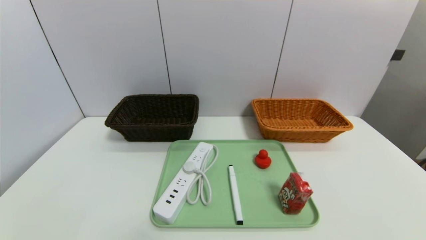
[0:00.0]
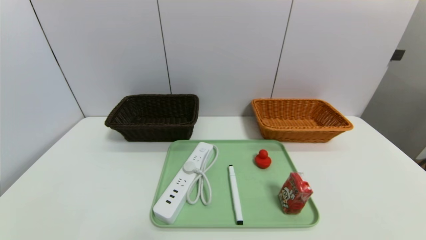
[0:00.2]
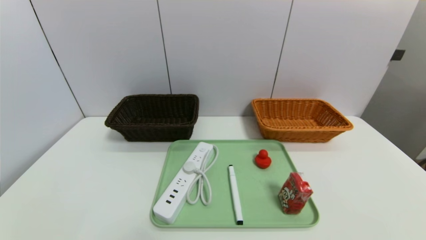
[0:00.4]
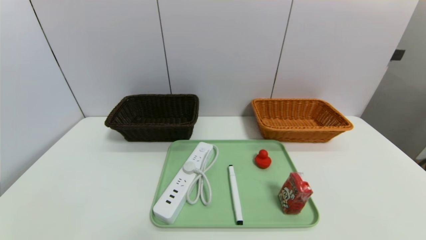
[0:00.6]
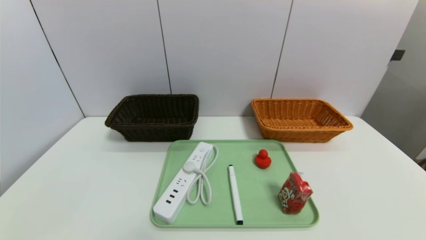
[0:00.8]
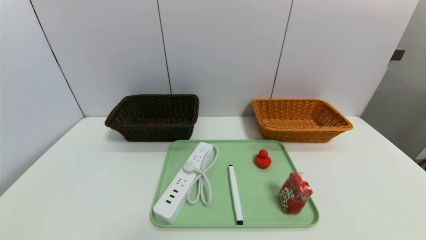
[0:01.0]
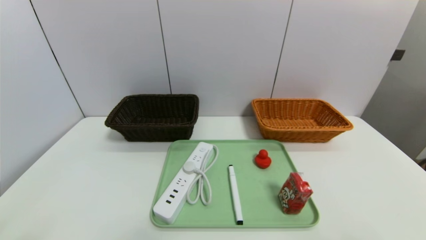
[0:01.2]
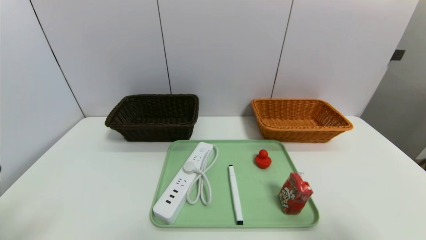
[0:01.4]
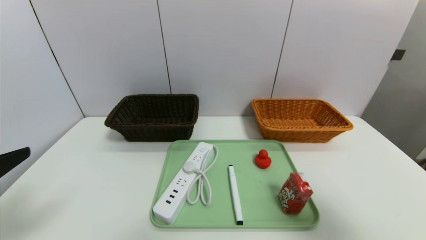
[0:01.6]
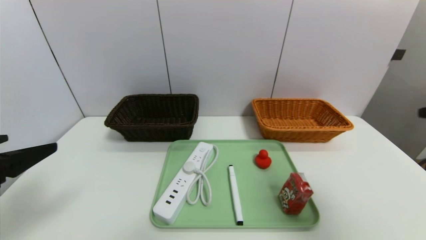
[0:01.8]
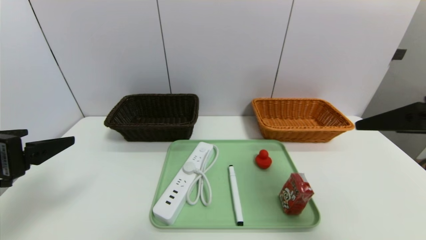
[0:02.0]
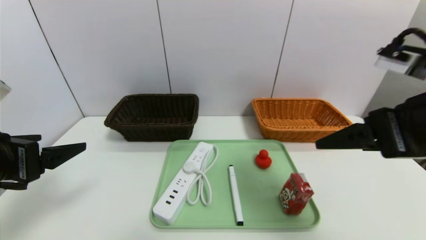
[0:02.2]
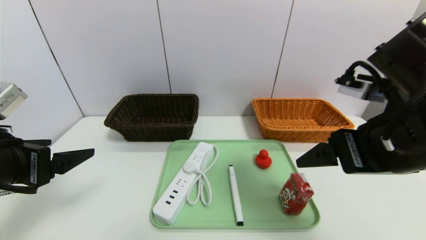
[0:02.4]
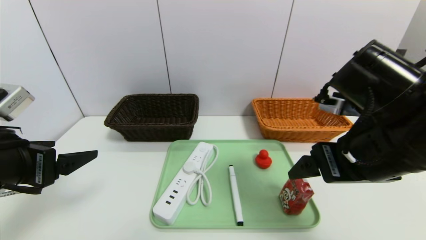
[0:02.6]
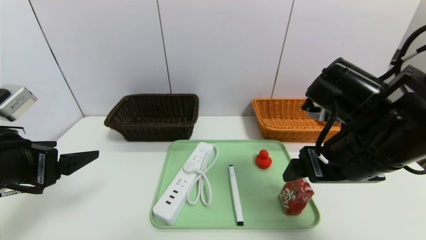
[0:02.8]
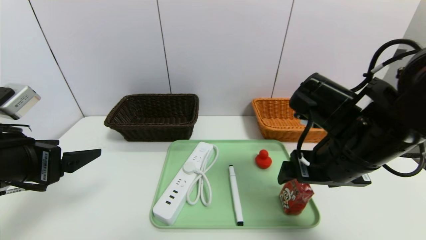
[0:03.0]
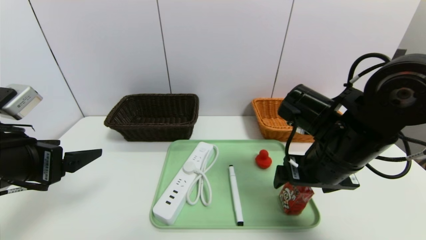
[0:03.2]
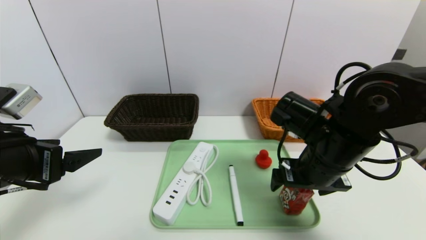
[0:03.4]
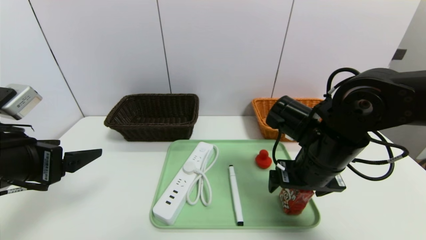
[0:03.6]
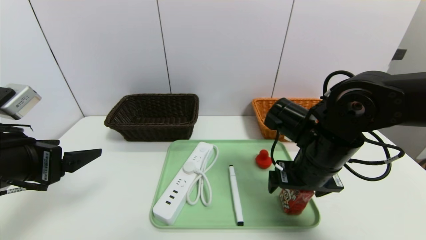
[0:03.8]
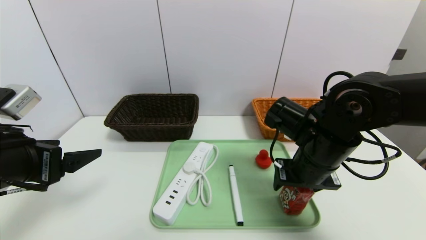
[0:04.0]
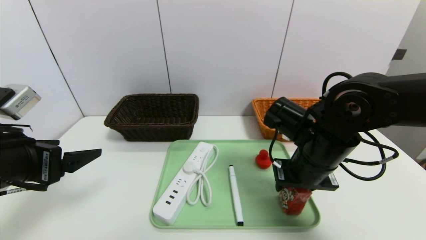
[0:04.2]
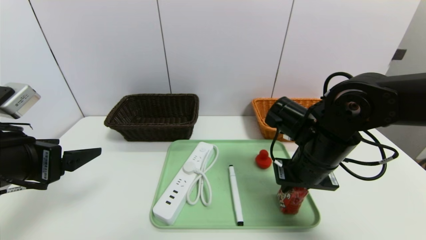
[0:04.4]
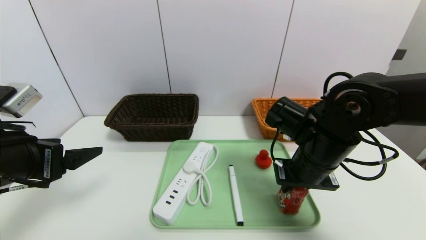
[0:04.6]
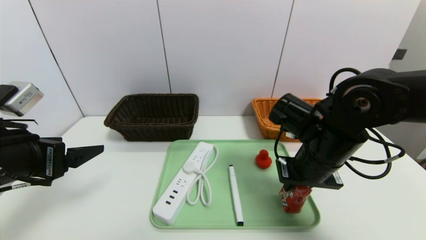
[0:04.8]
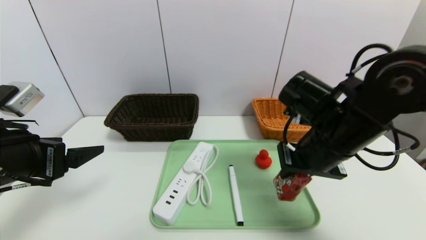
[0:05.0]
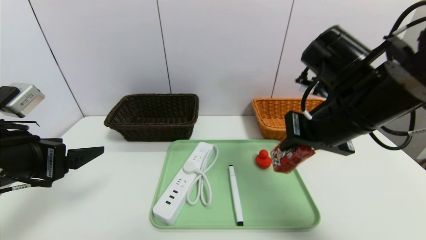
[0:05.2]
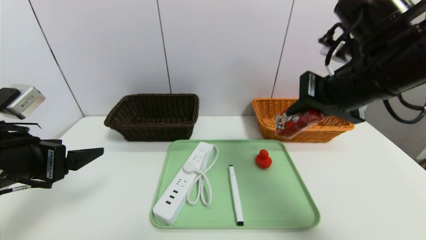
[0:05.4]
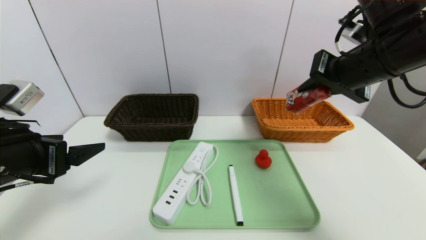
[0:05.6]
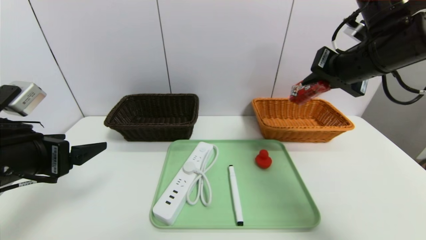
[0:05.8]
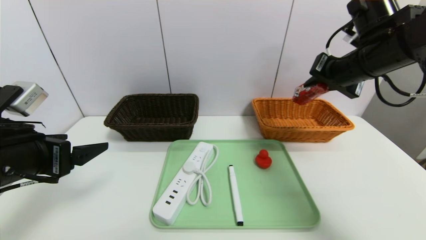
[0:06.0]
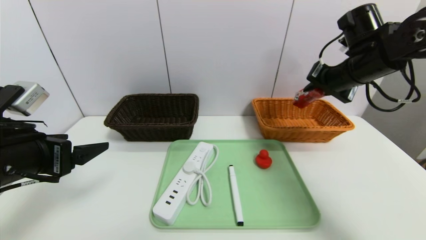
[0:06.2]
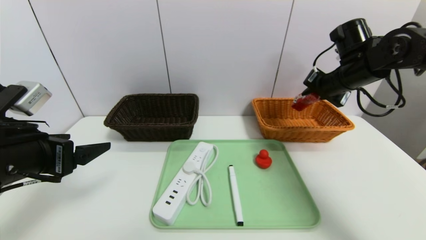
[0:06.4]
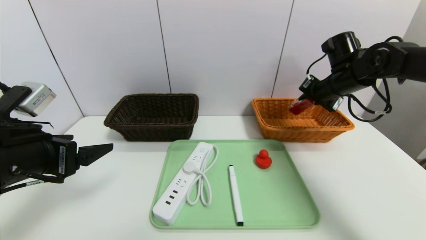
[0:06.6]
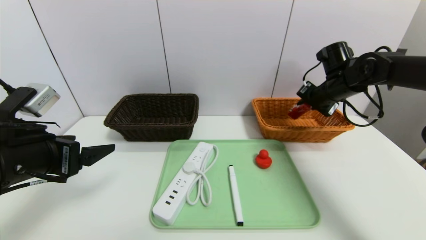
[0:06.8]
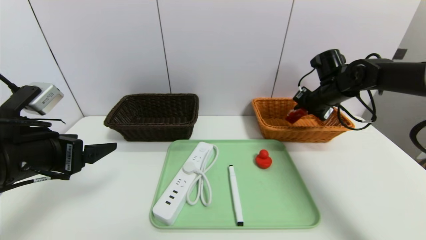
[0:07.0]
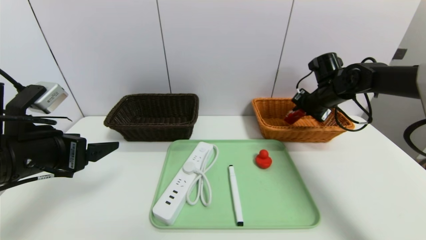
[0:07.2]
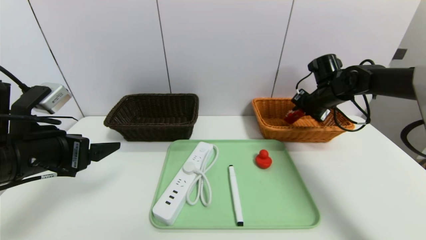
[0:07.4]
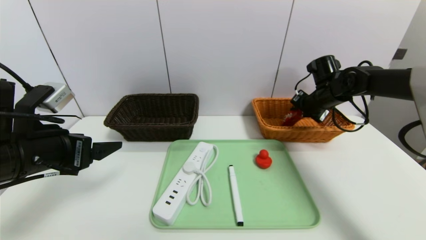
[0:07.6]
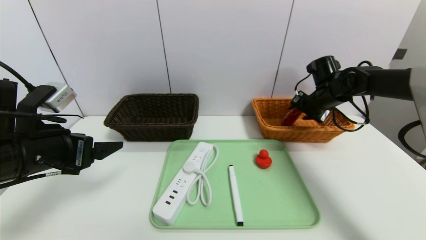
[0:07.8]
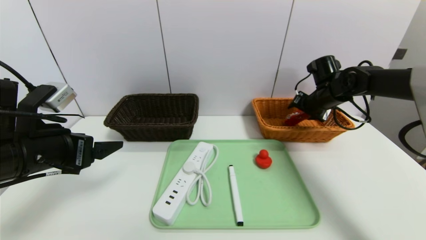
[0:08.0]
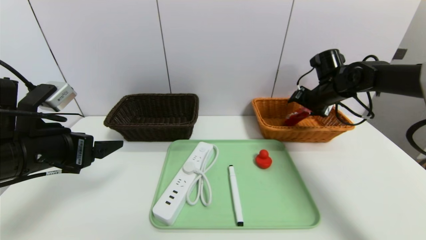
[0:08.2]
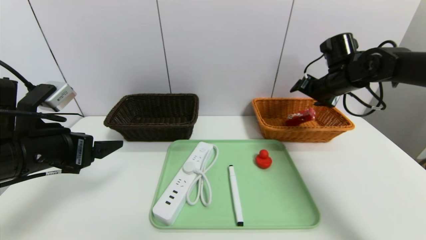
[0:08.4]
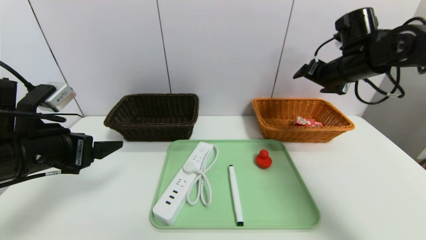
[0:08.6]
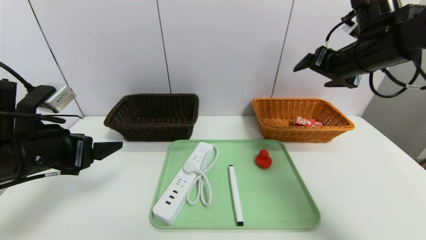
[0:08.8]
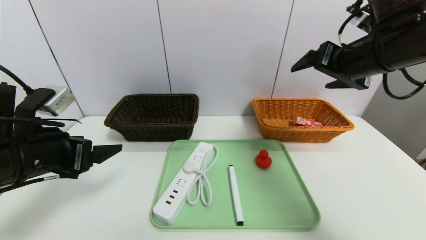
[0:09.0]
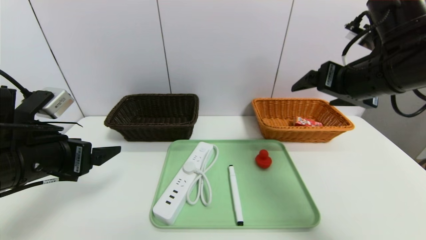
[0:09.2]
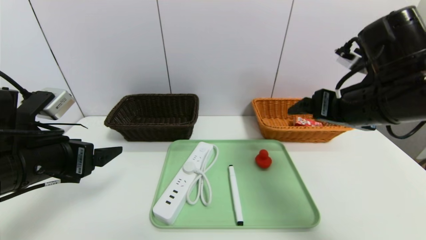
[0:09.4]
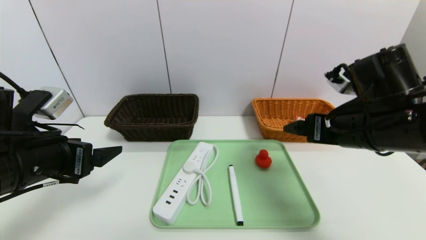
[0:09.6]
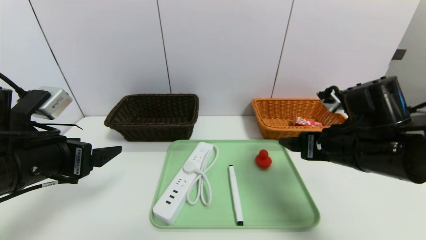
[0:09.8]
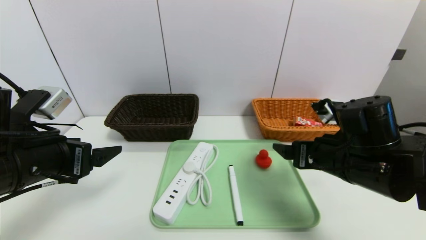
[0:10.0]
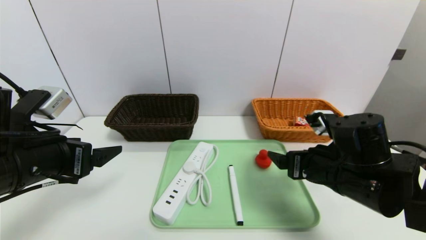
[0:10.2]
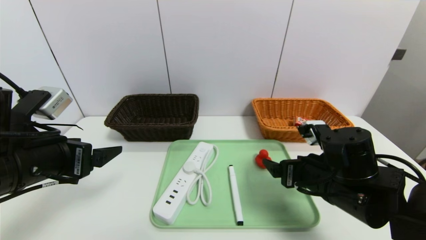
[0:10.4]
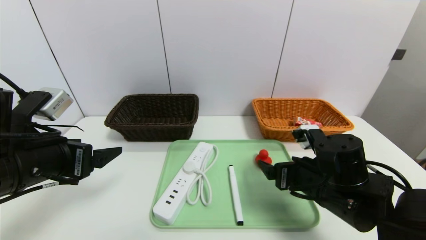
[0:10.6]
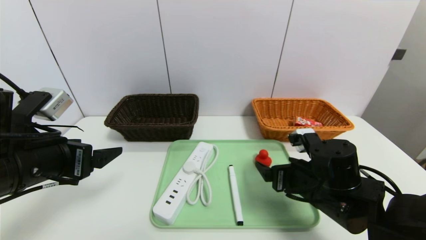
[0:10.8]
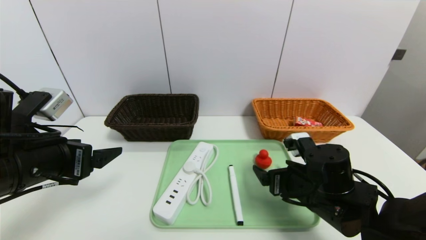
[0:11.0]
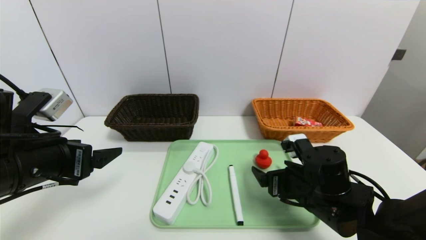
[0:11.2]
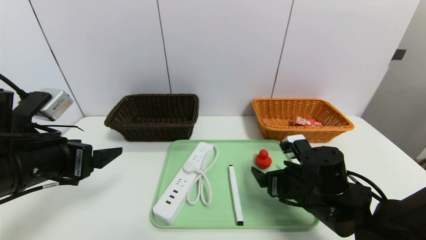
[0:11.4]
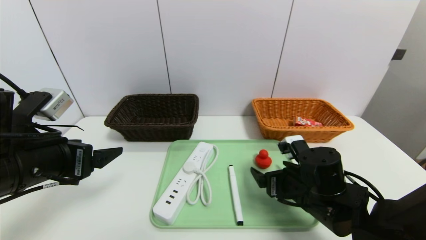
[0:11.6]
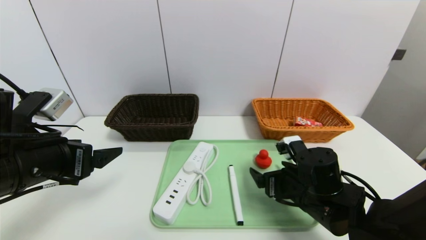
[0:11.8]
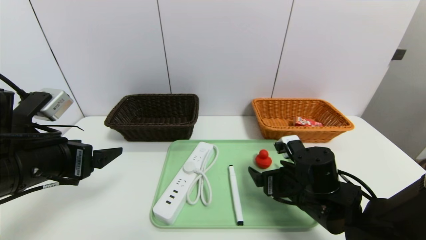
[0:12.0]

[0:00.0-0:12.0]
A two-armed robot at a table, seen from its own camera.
Task of the whole recording: place the food in the right basket with the right gripper, and place the non food items in the left basket with the left gripper.
Step, 0:00.0 to 0:08.4: Grasp the milk and put it in the right basket.
0:00.0 to 0:01.6: The right gripper moves upward, approximately 25 cm, while the left gripper travels upward and forward by roughly 20 cm.
0:01.6 to 0:03.0: The left gripper is displaced forward by approximately 10 cm; the right gripper shifts roughly 25 cm to the left, forward and downward.
0:03.0 to 0:04.4: The right gripper changes place by approximately 5 cm, and closes its fingers.
0:04.4 to 0:06.0: The right gripper heads upward, to the right and forward, covering some 20 cm.
0:06.0 to 0:07.6: The right gripper shifts roughly 15 cm downward and forward.
0:07.6 to 0:09.0: The right gripper travels backward and upward by approximately 20 cm, and opens.
0:09.0 to 0:10.4: The right gripper goes roughly 20 cm downward.
0:10.4 to 0:12.0: The right gripper heads downward, covering some 5 cm.

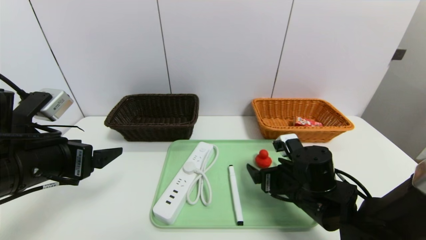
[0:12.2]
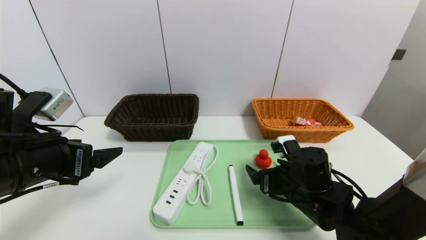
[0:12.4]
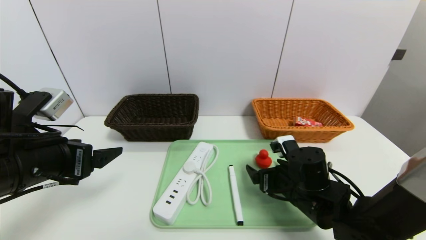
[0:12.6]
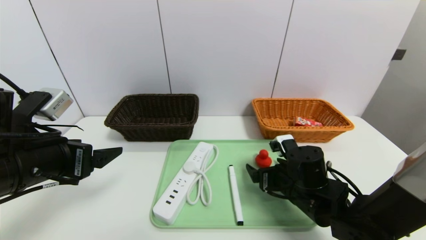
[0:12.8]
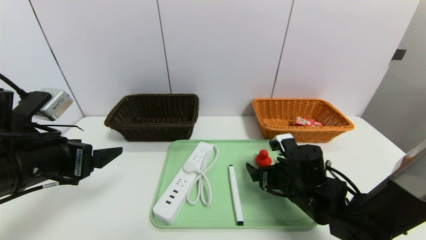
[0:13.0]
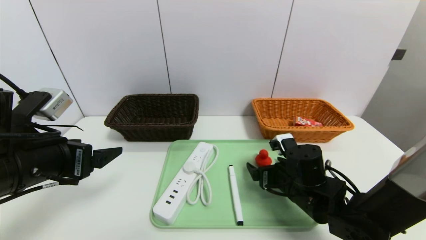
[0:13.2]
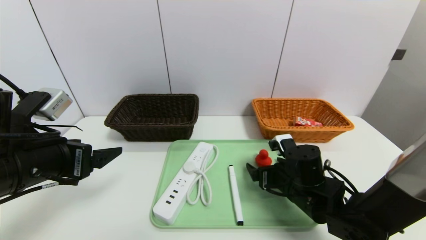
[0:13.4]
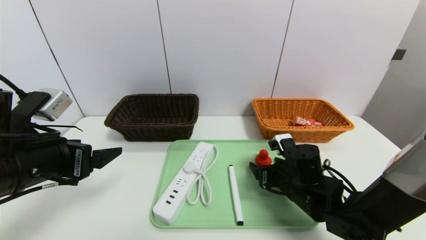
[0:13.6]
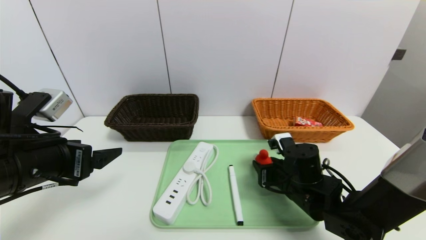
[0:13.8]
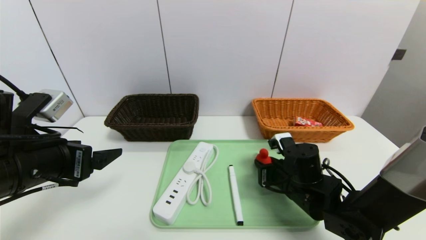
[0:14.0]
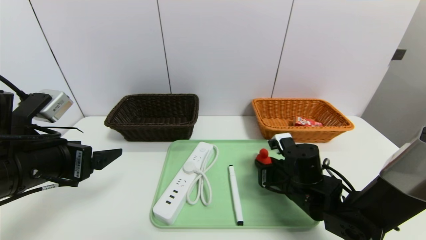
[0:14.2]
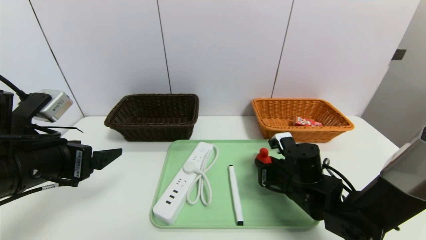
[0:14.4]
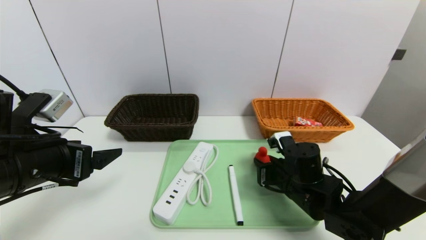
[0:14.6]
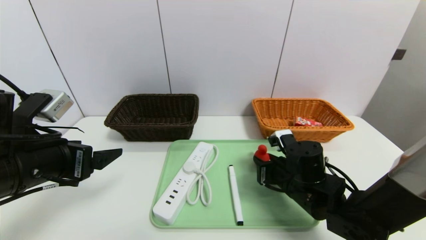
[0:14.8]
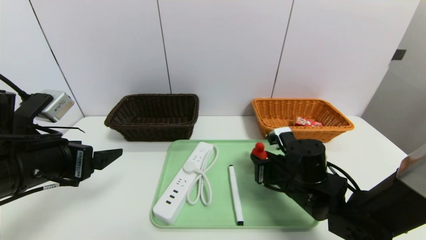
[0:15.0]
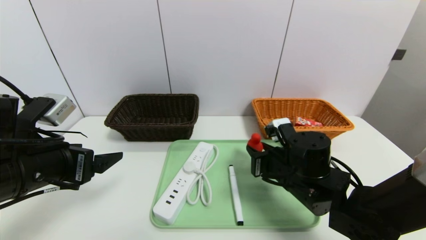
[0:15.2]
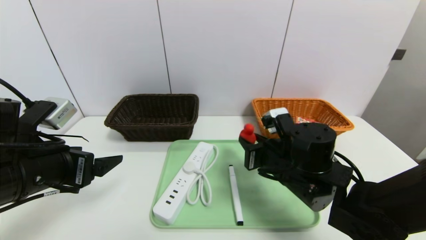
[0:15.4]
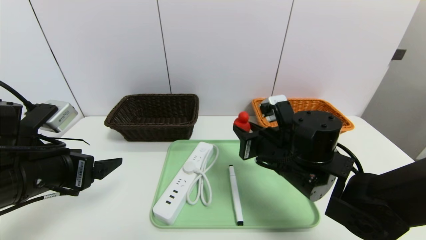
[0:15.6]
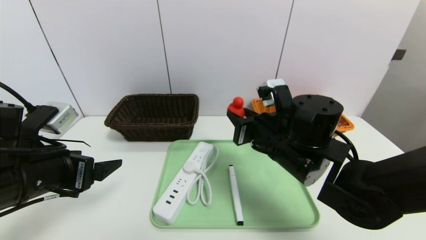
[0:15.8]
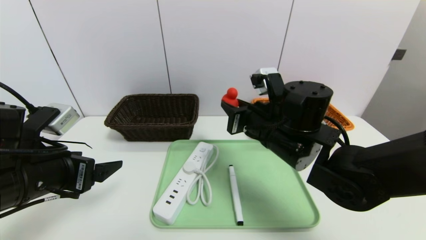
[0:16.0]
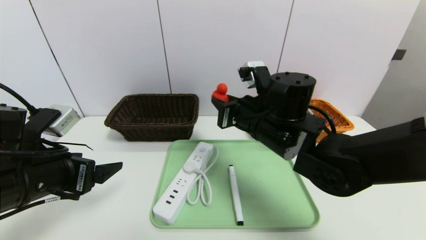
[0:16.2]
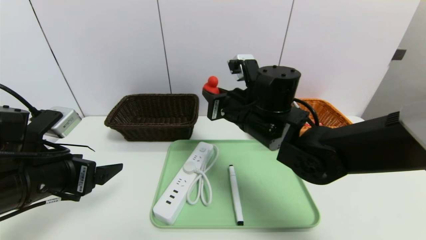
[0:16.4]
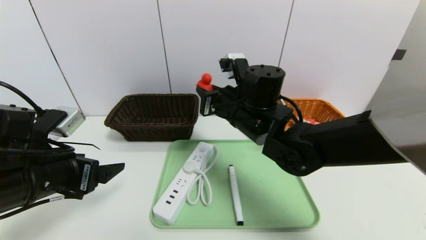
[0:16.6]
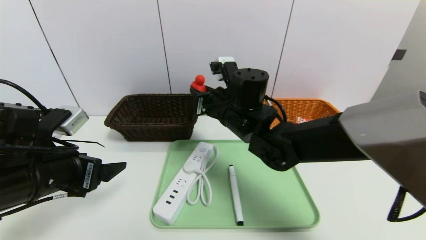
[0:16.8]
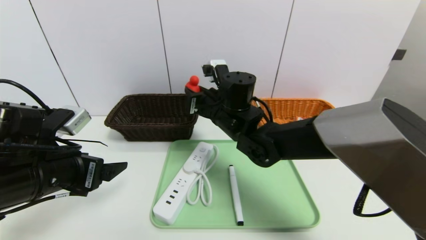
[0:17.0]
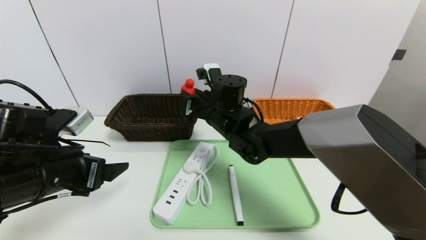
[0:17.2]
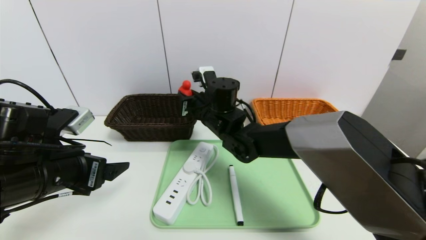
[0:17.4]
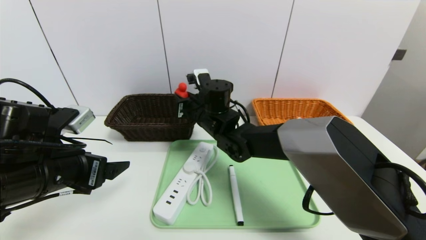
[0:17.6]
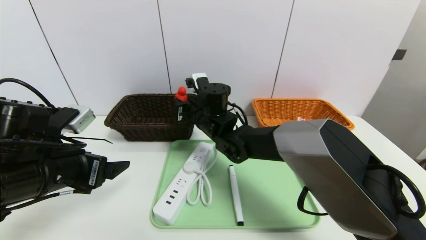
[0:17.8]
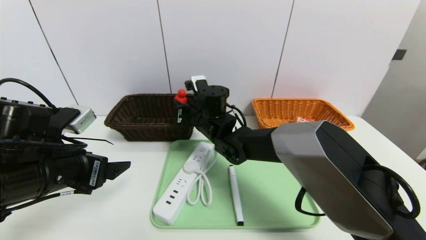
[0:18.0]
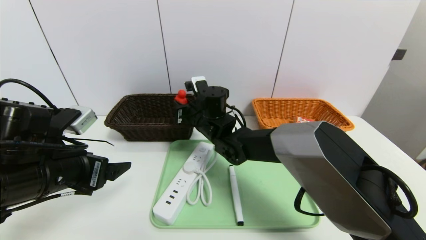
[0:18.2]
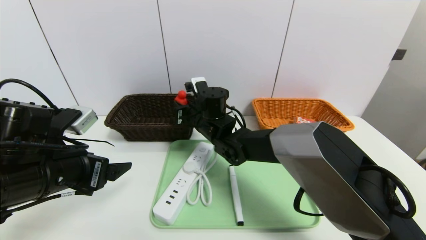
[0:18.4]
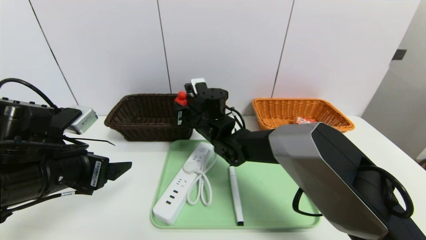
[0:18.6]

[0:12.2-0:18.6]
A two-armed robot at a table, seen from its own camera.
Task of the whole recording: place the food in the right basket with the right gripper, and place the non food items in the left basket with the left gripper.
0:12.2 to 0:13.8: The right gripper closes its fingers.
0:13.8 to 0:15.4: The right gripper heads upward, covering about 5 cm.
0:15.4 to 0:17.0: The right gripper travels to the left, forward and upward by roughly 15 cm.
0:17.0 to 0:18.6: The right gripper ends up about 5 cm from where it was.
